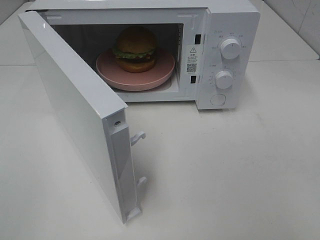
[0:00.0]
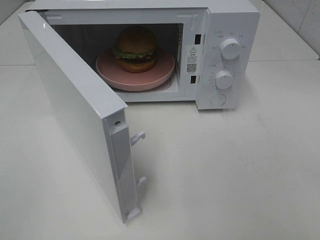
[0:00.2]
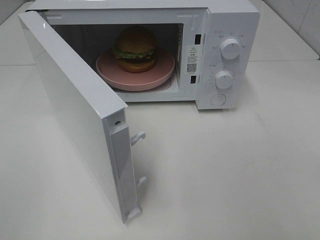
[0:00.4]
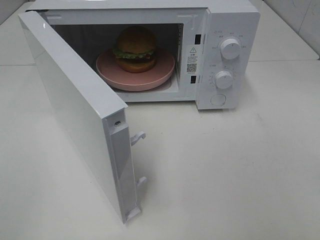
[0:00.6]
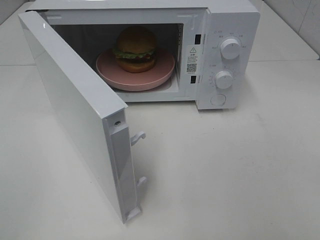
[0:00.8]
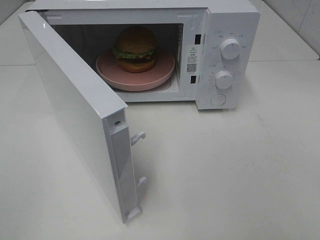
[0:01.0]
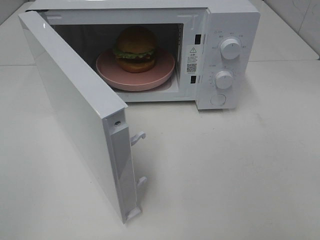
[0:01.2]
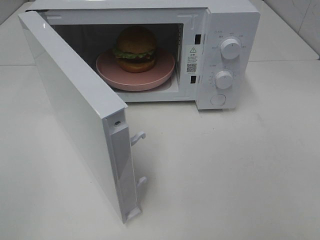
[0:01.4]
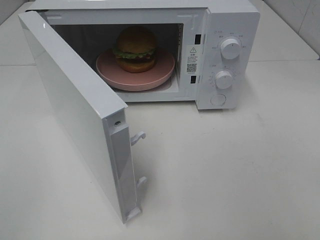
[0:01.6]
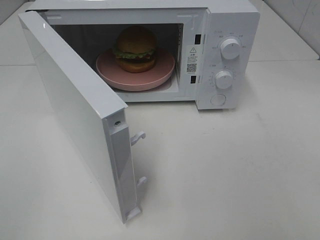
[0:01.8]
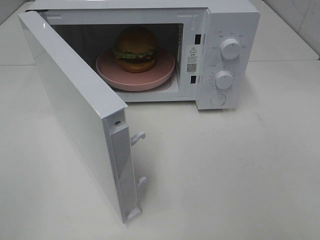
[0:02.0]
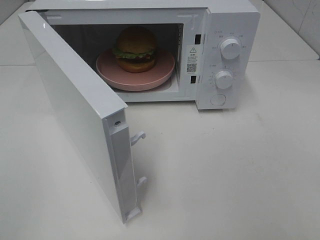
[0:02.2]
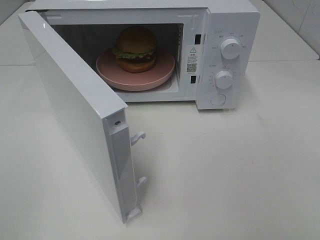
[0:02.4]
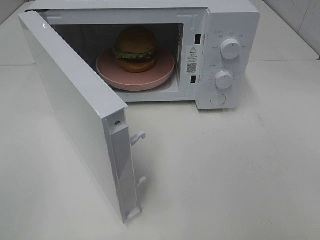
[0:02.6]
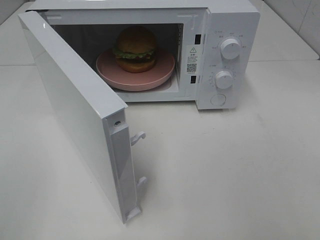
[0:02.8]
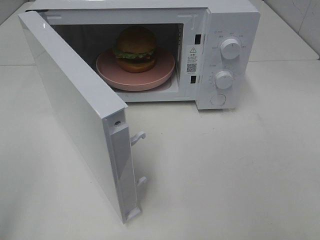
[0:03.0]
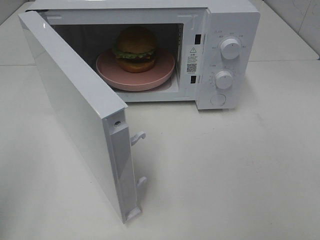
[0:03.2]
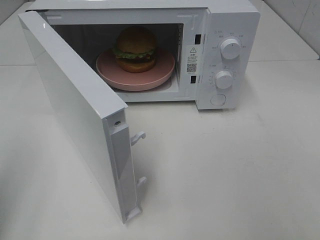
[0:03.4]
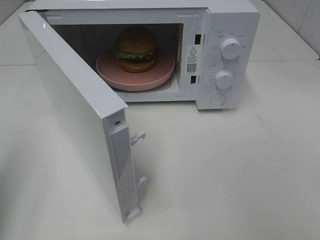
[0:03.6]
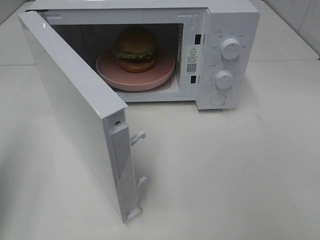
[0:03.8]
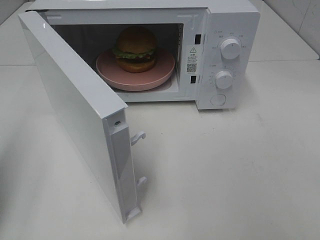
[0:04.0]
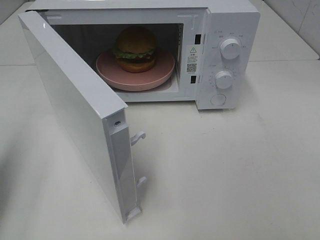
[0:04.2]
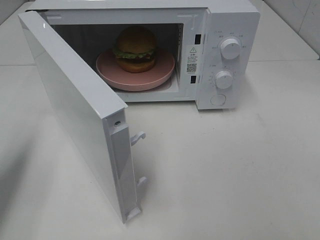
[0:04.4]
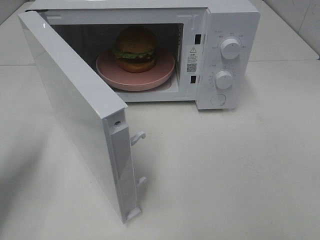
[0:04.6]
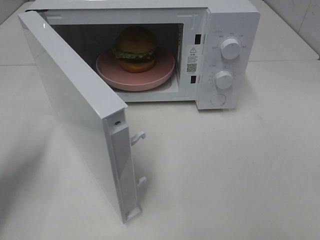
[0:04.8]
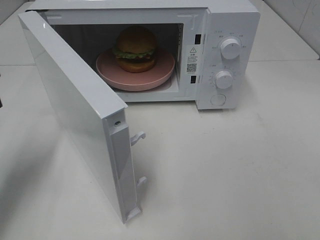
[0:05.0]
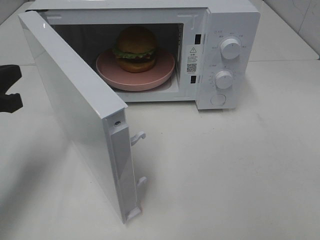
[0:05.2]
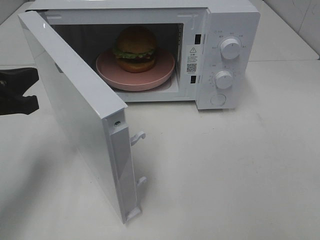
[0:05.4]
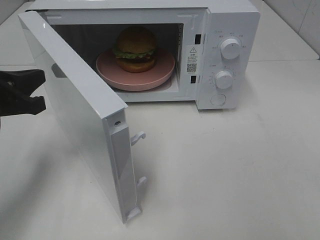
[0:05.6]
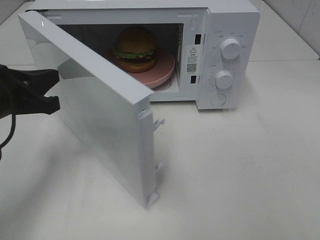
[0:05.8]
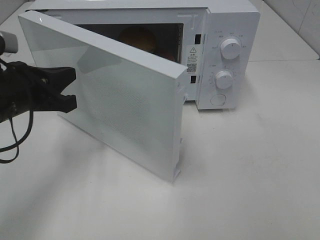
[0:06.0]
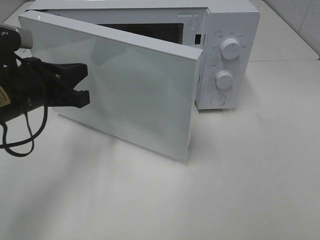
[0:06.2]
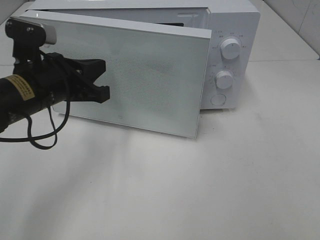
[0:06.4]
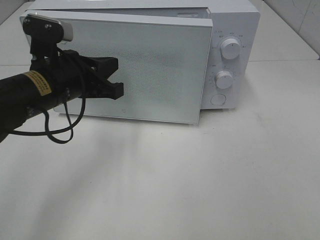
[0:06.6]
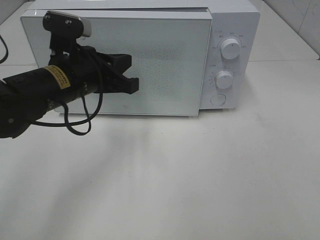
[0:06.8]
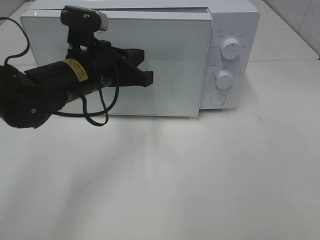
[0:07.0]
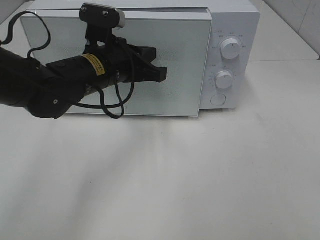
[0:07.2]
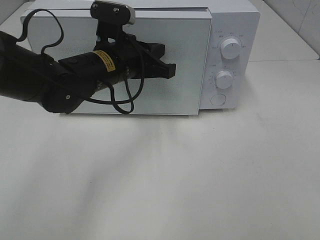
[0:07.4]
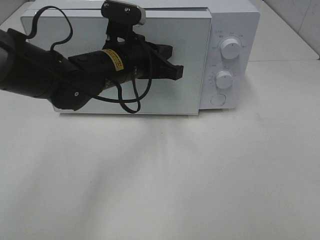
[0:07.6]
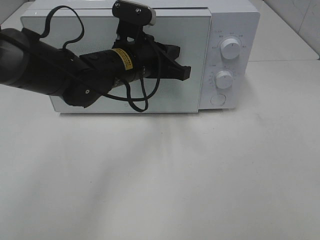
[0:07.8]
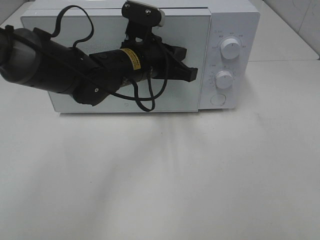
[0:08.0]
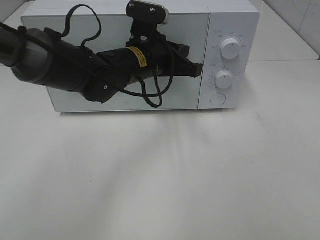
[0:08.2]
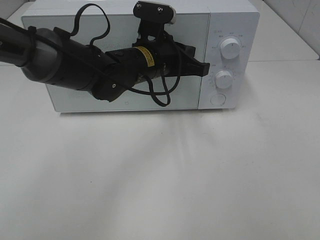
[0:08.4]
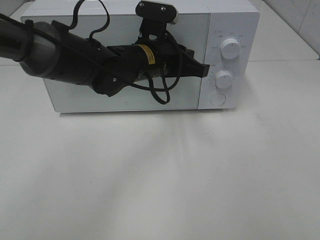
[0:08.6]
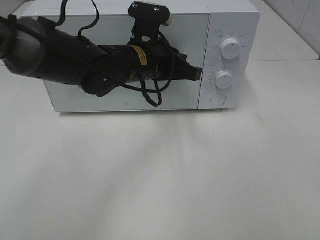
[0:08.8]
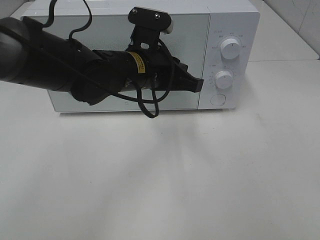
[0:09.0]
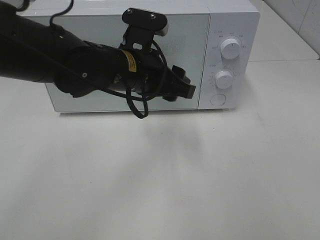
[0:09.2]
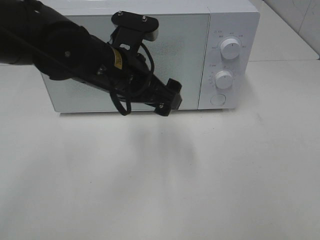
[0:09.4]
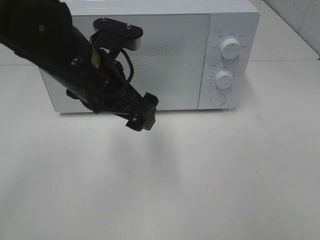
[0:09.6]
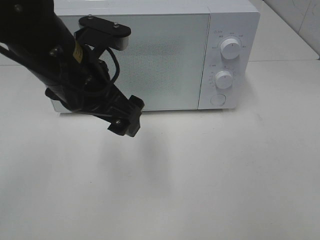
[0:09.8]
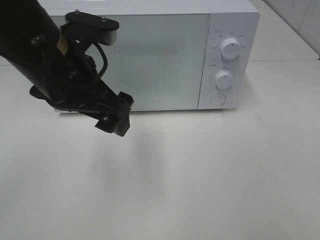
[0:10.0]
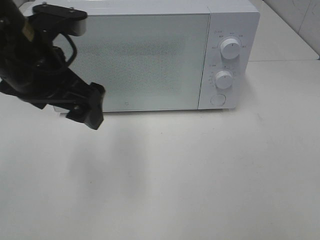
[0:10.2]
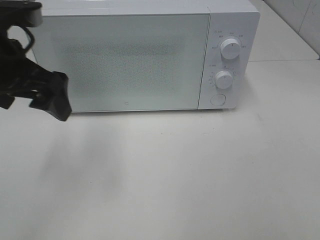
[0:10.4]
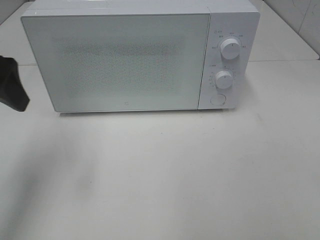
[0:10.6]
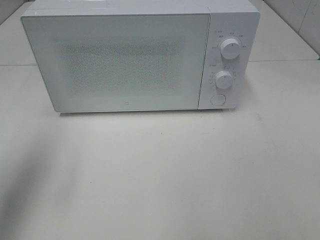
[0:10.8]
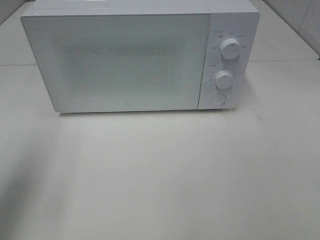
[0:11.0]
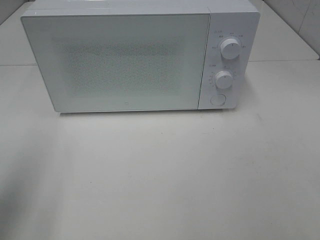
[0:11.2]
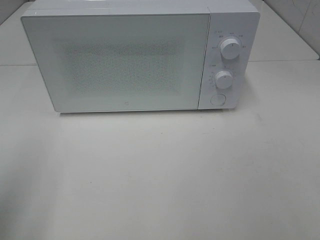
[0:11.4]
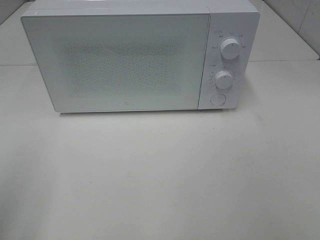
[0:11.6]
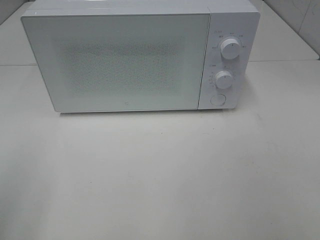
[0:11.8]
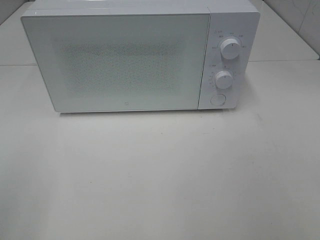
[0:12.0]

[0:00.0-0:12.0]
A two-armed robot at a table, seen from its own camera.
Task of the whole recording: Heat the burger.
Step, 0:00.0 to 0:08.8: Left hand: close the microwave door.
0:03.0 to 0:04.4: The left gripper travels forward and downward by some 15 cm, and closes its fingers.
0:04.4 to 0:06.0: The left gripper moves to the right and forward, roughly 15 cm.
0:06.0 to 0:07.6: The left gripper is displaced to the right and forward by roughly 15 cm.
0:07.6 to 0:09.0: There are only small adjustments of the grippers.
0:09.0 to 0:10.4: The left gripper shifts some 20 cm to the left and upward, and opens up.
0:10.4 to 0:12.0: The left gripper moves backward and to the left, roughly 25 cm.

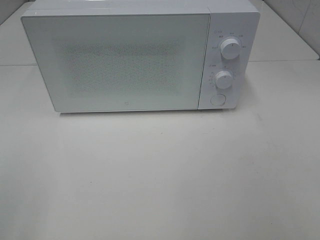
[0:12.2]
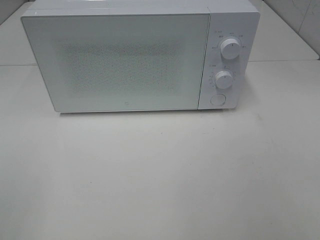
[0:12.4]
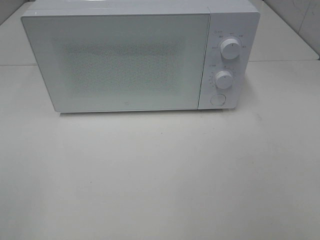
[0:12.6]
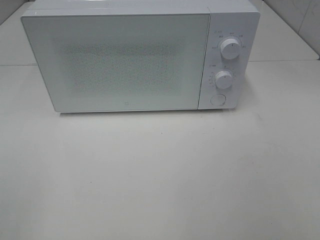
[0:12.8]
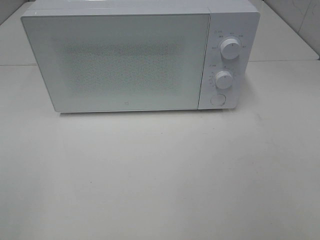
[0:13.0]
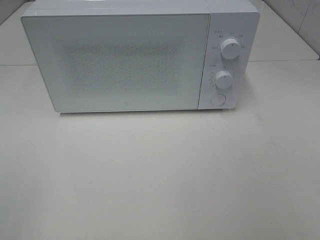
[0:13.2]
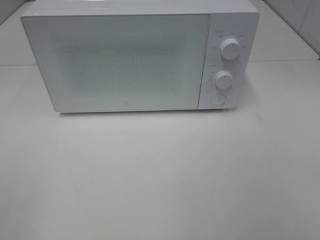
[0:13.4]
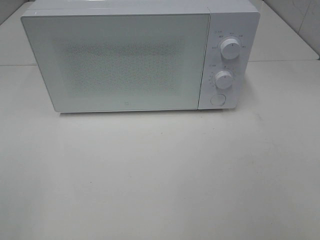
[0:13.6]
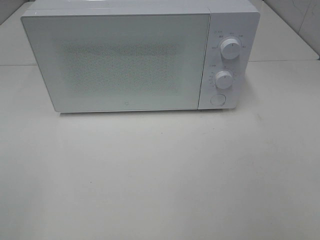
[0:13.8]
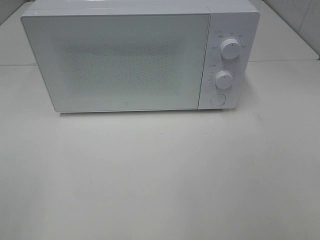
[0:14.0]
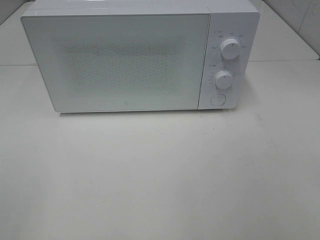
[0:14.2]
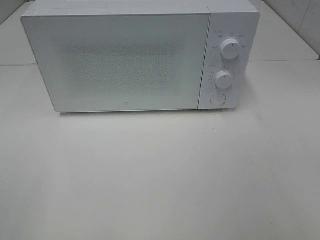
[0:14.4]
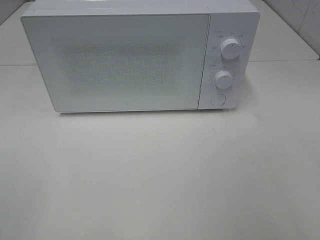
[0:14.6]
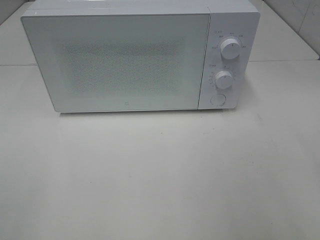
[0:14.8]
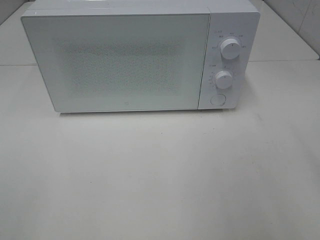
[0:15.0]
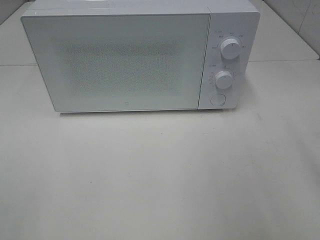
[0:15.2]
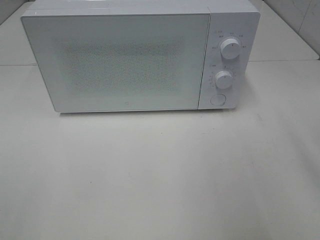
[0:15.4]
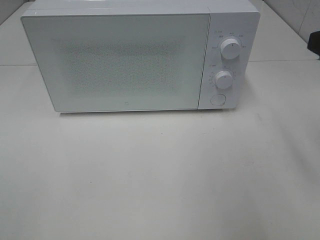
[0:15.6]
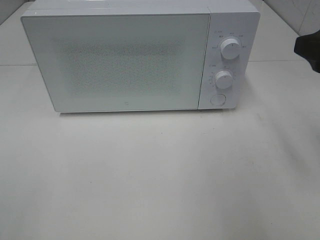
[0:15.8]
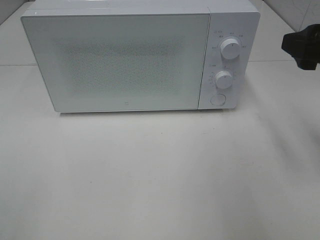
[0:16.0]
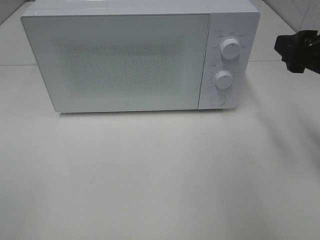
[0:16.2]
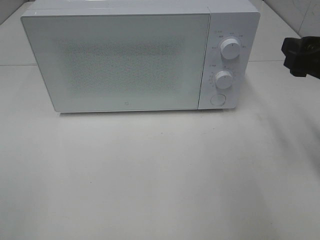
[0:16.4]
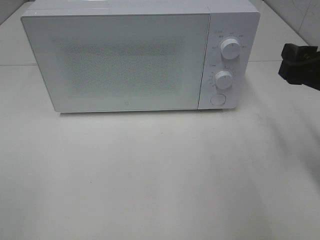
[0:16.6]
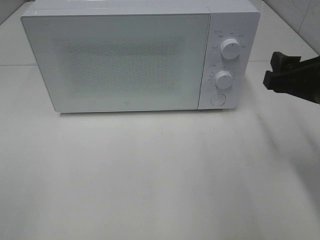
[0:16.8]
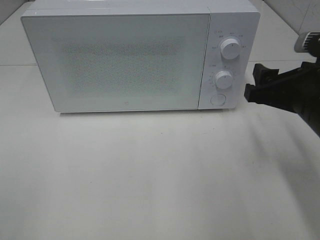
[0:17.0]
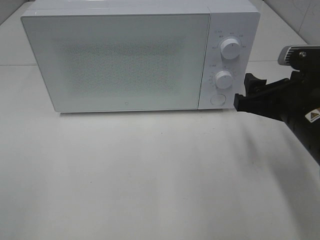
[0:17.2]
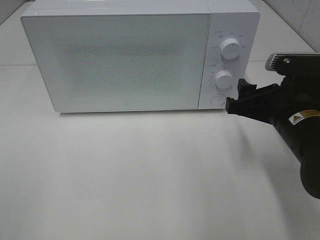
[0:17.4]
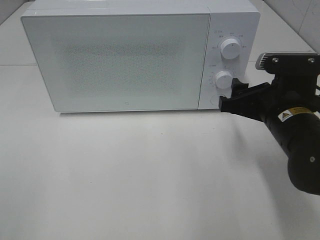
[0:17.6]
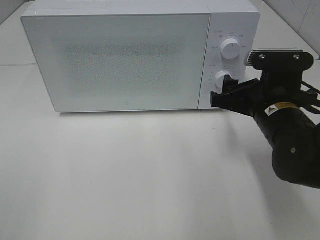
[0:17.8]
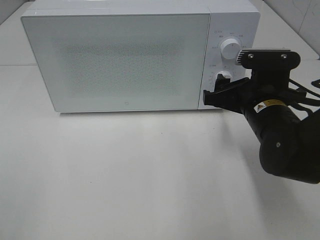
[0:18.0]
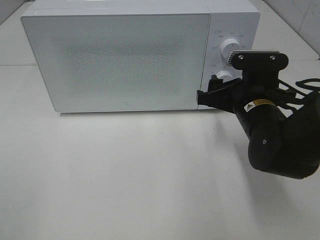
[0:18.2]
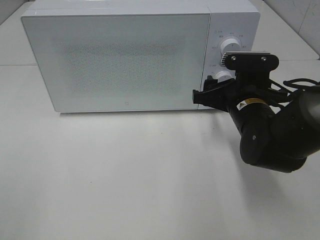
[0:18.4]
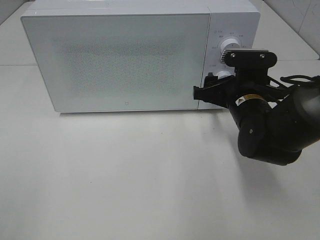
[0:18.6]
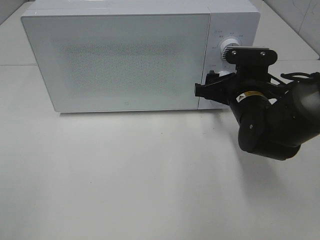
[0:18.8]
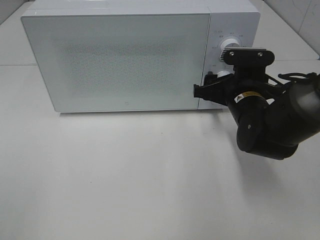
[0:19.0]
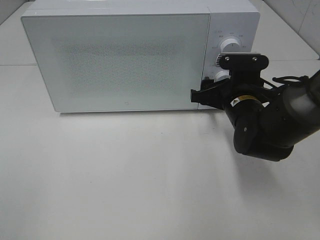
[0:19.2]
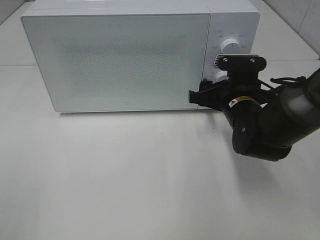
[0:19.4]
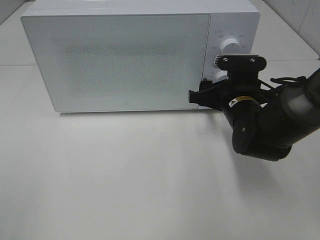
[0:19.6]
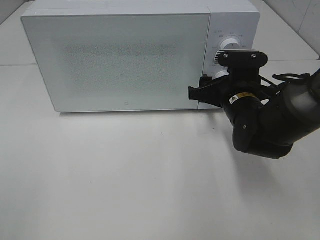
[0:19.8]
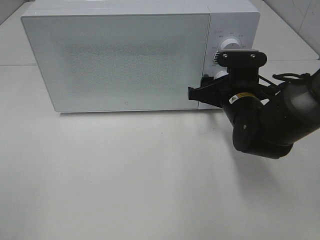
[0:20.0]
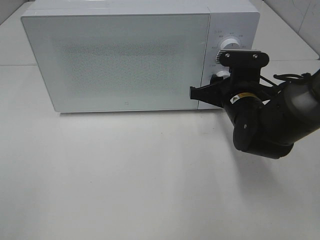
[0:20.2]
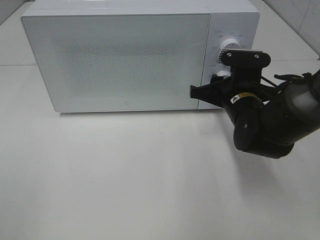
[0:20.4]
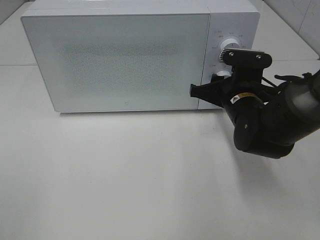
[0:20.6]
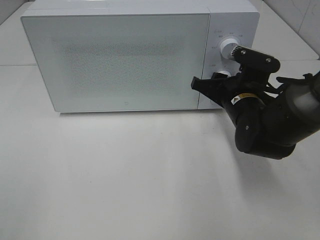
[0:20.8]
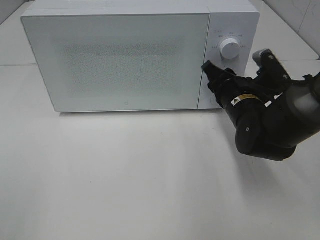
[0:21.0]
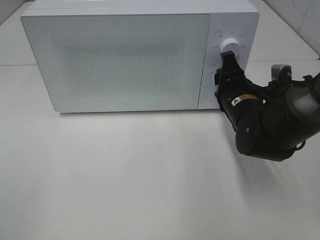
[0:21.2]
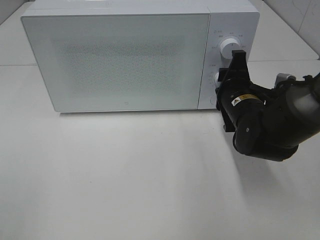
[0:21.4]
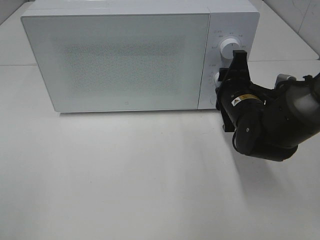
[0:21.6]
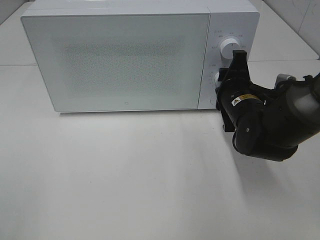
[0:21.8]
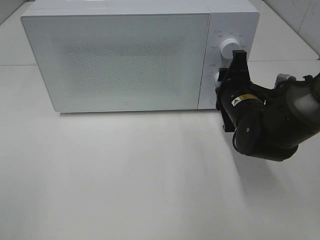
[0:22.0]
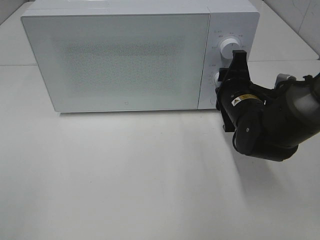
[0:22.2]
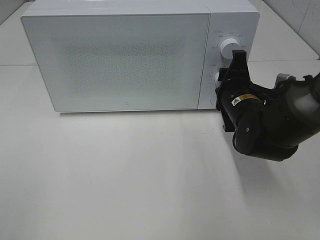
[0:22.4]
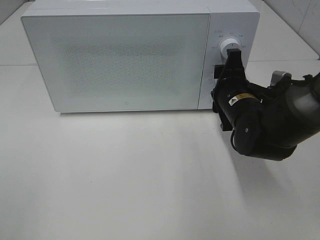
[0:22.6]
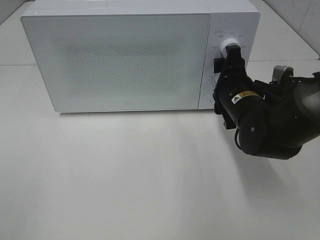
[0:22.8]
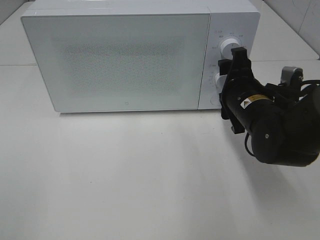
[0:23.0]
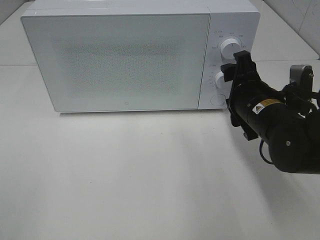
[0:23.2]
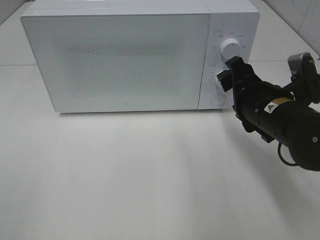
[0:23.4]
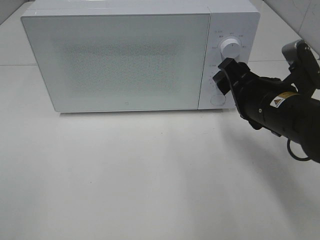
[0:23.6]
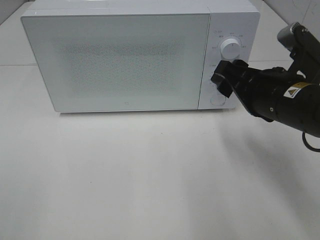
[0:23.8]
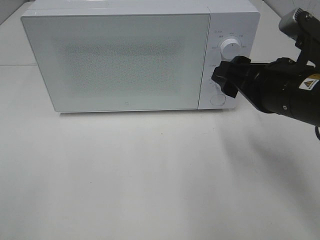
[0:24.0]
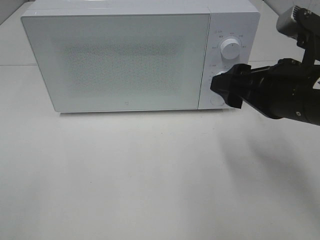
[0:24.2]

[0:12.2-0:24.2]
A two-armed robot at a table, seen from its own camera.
Task of the whole recording: Heat the burger.
Step, 0:12.2 to 0:22.6: Right hand: twist timer button.
0:15.2 to 0:16.6: The right gripper shifts approximately 10 cm forward and downward.
0:16.6 to 0:18.2: The right gripper goes some 15 cm to the left, downward and forward.
0:18.2 to 0:19.8: The grippers stay close to where they were, moving slightly.
0:21.2 to 0:22.6: The grippers move only a little.
0:22.6 to 0:24.2: The right gripper heads backward and upward, covering approximately 15 cm.
